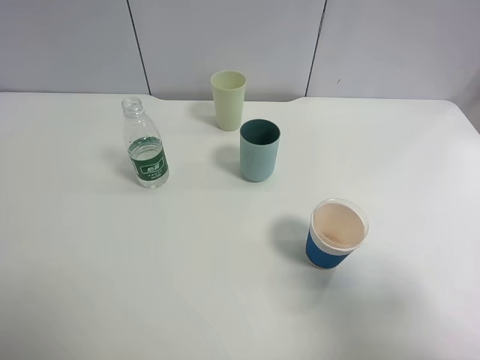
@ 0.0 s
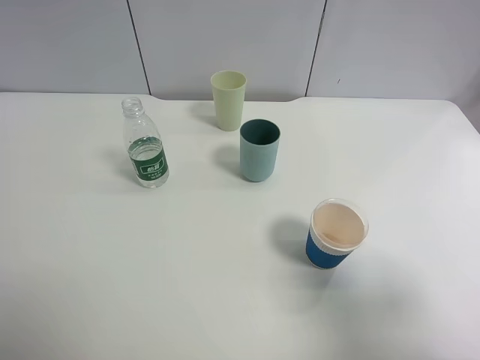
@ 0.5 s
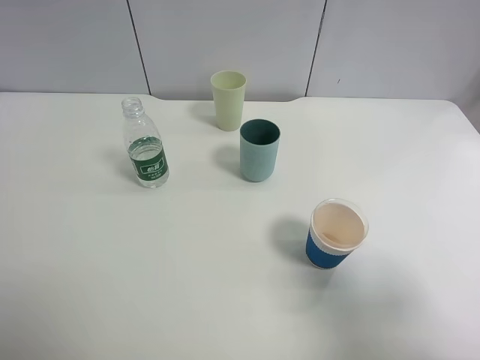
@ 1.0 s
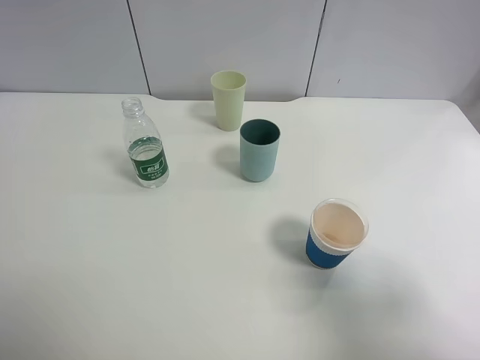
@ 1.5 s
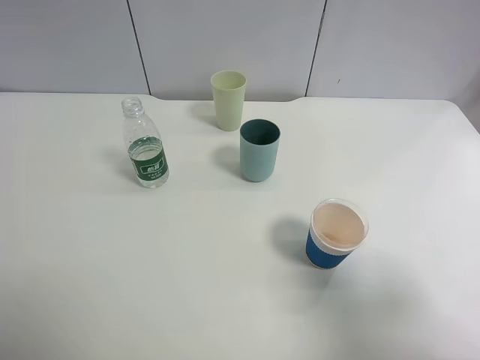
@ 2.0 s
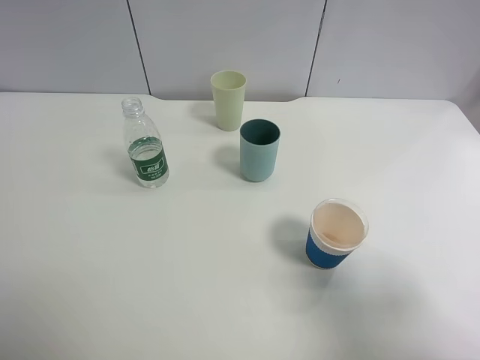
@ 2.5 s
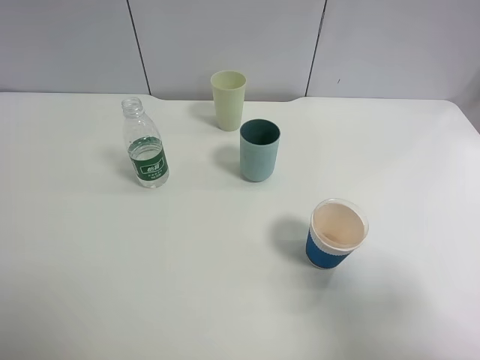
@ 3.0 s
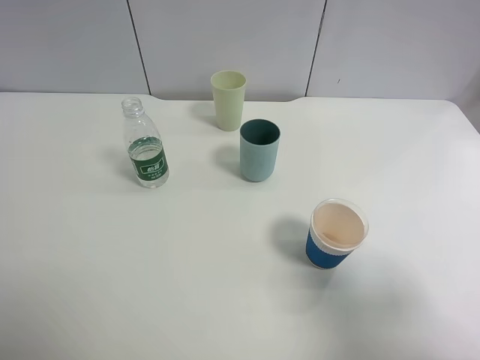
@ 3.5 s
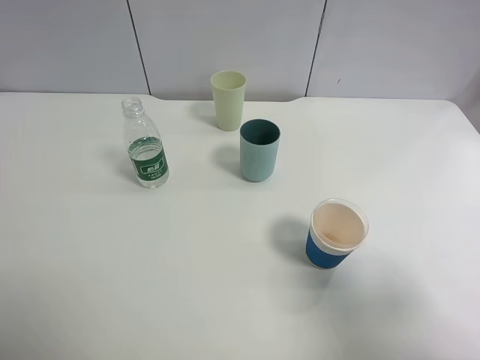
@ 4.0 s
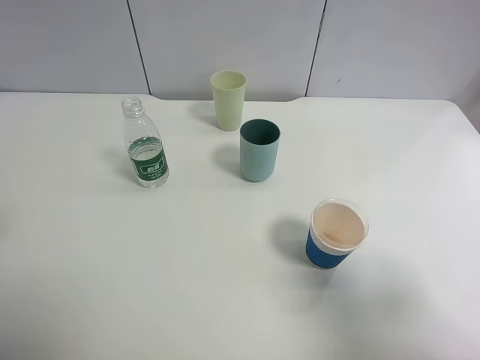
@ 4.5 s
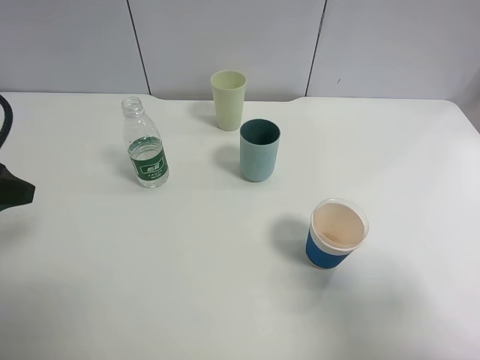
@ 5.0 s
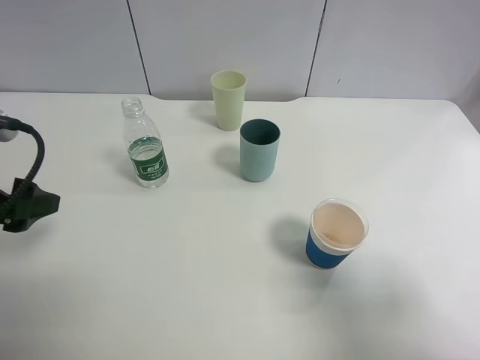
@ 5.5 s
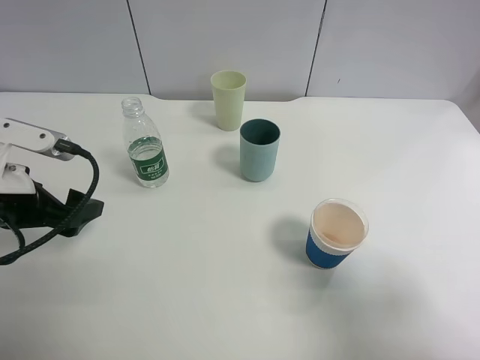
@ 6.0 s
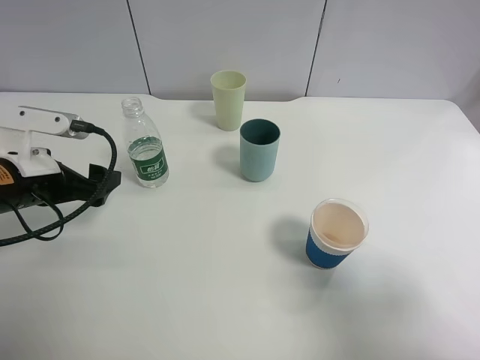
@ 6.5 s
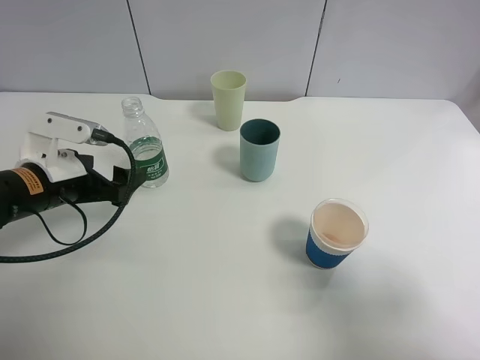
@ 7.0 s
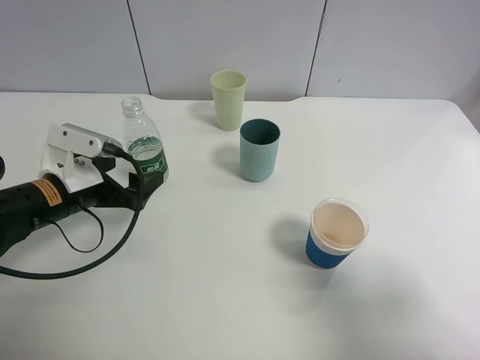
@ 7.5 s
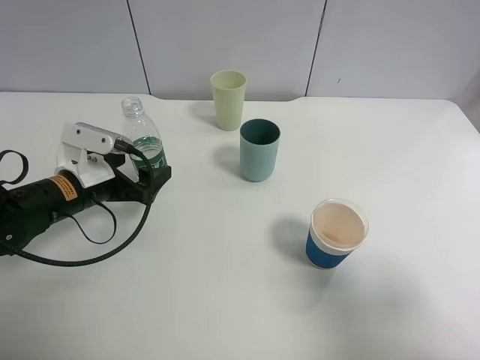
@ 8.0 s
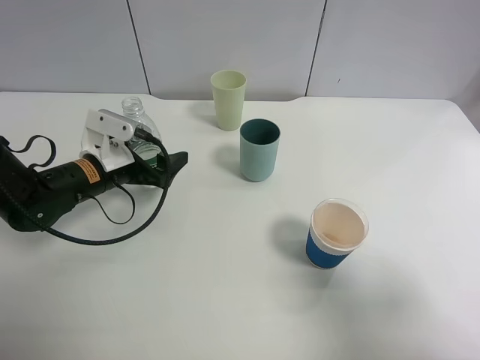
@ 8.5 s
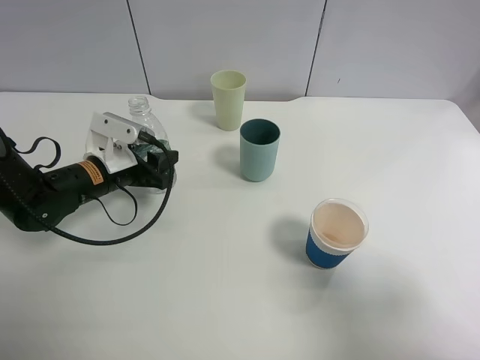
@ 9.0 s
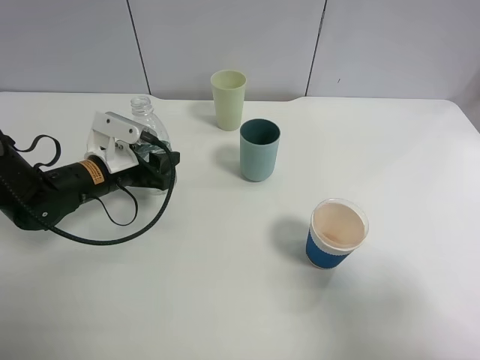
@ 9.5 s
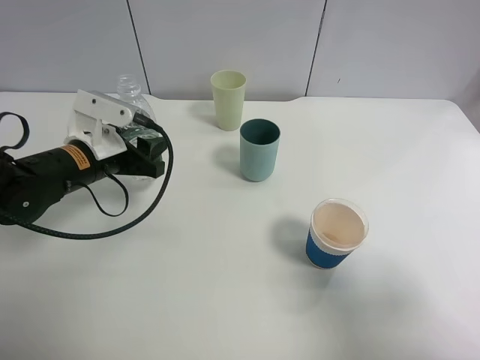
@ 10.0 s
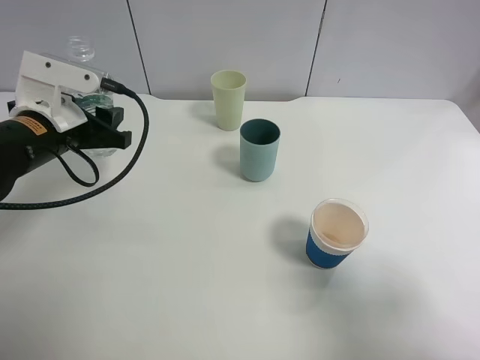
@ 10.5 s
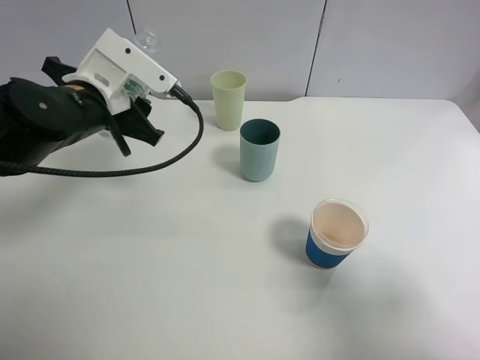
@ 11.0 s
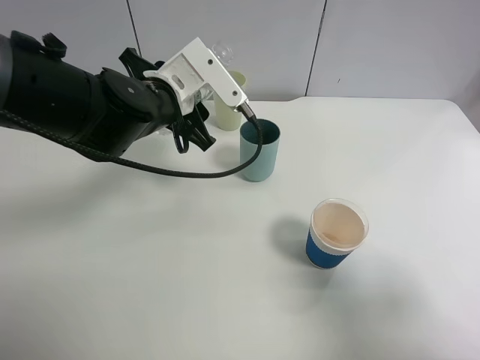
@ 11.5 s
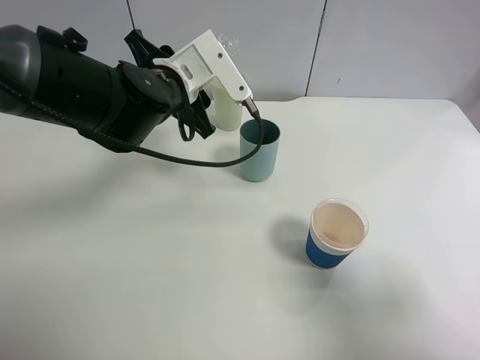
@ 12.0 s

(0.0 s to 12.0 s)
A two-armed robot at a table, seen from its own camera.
Task of the whole recording: use a clamp to hold the bottle of the drink, pour the beverage into a random cup, then clamp the cup containing the drink and pour the drink into another random cup.
Step, 0.0 s - 9.5 s: Pick up the water bottle with left gripper.
0.0 s - 2.0 s: Both grippers stay put.
4.0 s - 6.0 s: The left gripper shifts roughly 20 cm forward and downward.
6.0 s - 8.0 s: The left gripper is displaced downward and forward by approximately 10 cm.
8.0 s - 10.0 s: The left gripper closes up.
10.0 s - 12.0 s: The left gripper travels to the right and upward by roughly 15 cm.

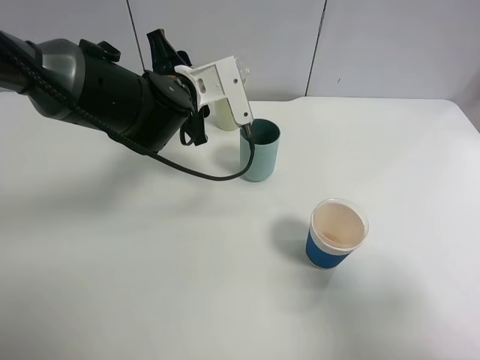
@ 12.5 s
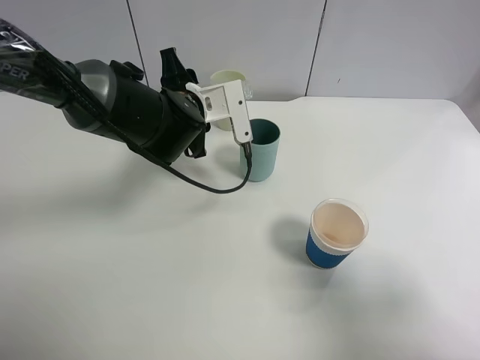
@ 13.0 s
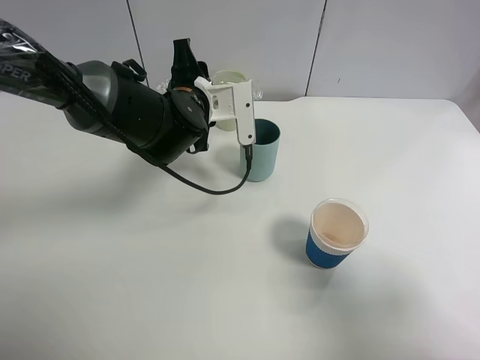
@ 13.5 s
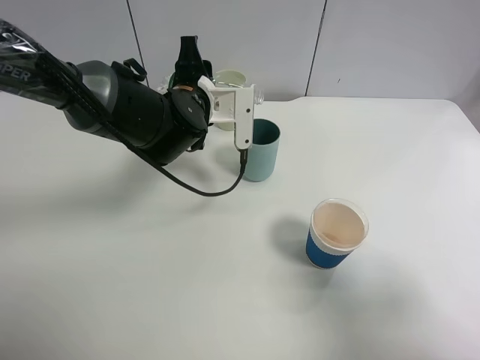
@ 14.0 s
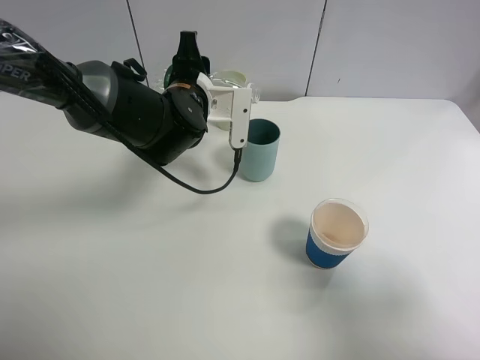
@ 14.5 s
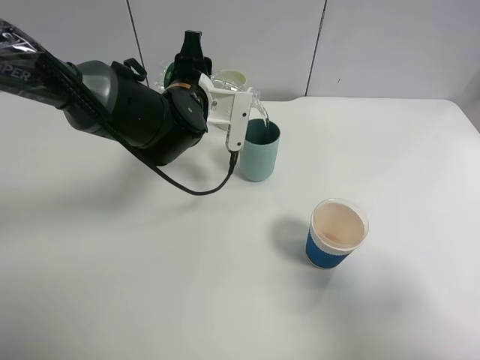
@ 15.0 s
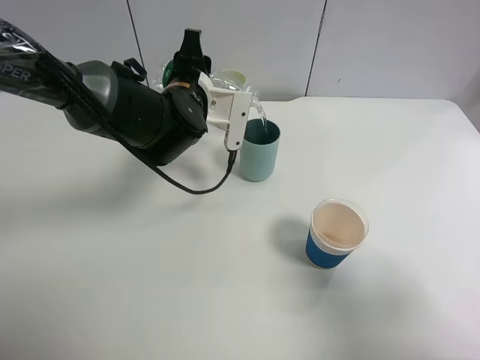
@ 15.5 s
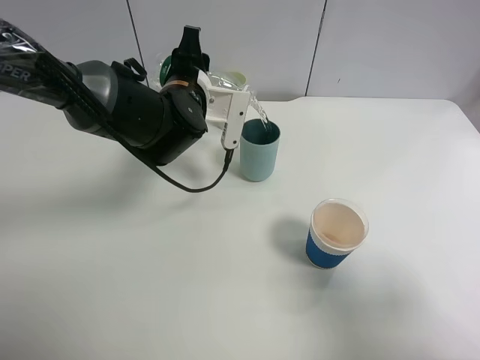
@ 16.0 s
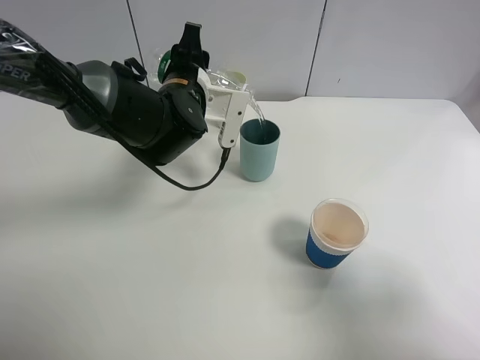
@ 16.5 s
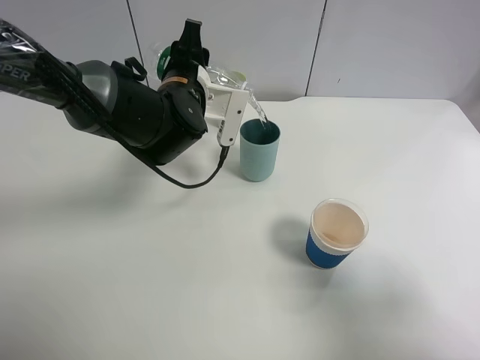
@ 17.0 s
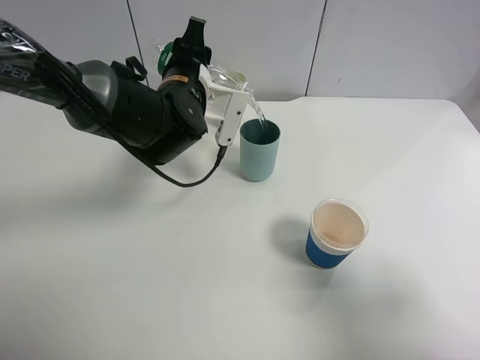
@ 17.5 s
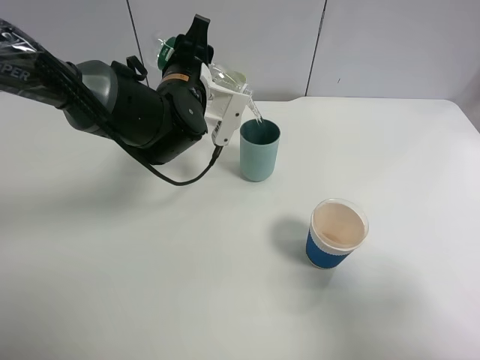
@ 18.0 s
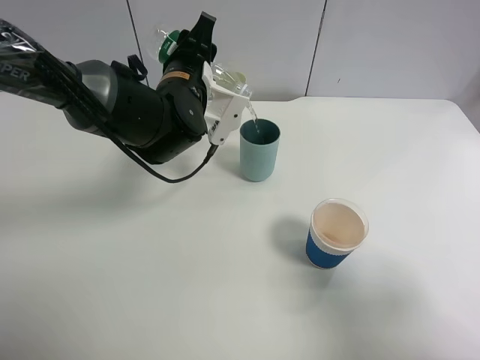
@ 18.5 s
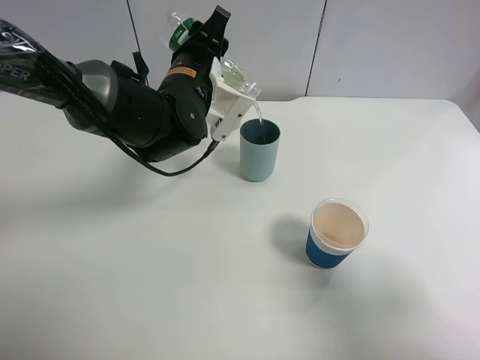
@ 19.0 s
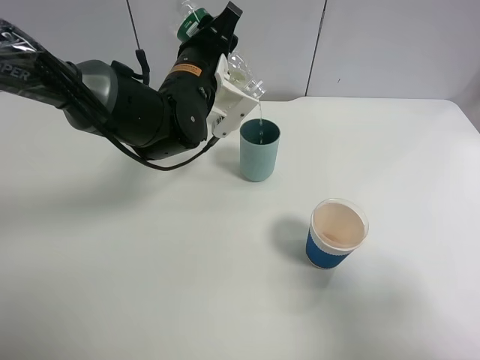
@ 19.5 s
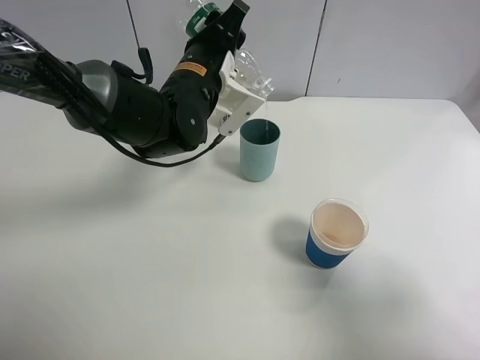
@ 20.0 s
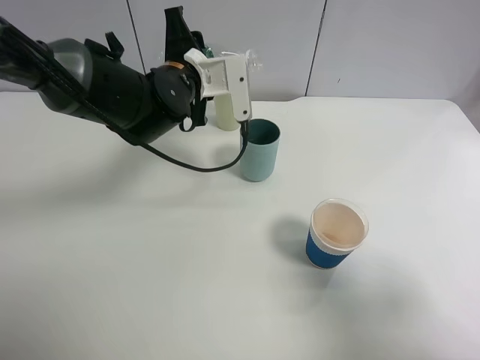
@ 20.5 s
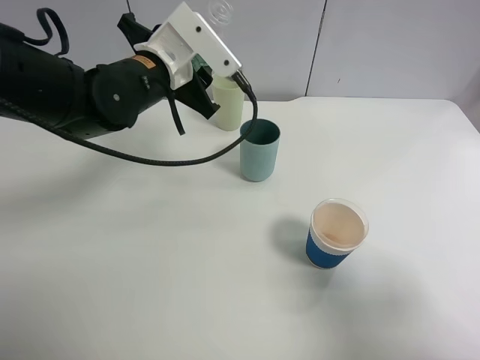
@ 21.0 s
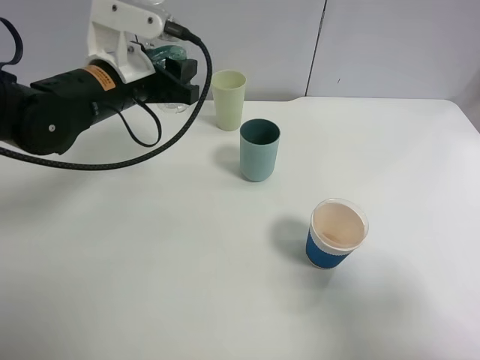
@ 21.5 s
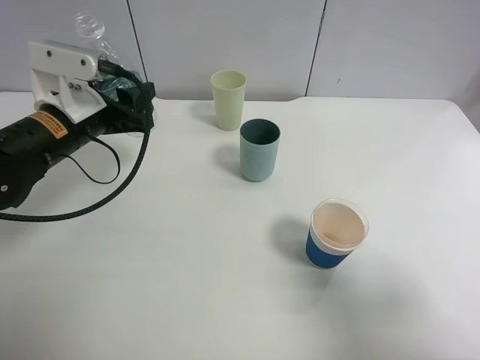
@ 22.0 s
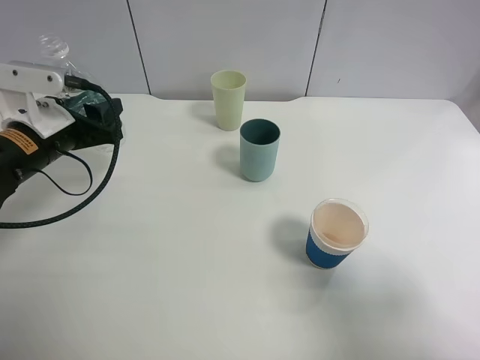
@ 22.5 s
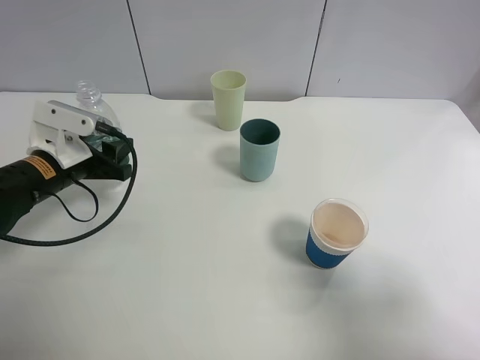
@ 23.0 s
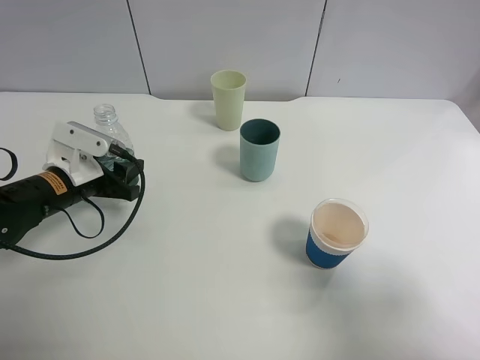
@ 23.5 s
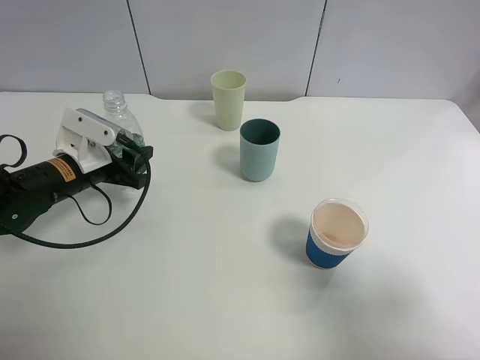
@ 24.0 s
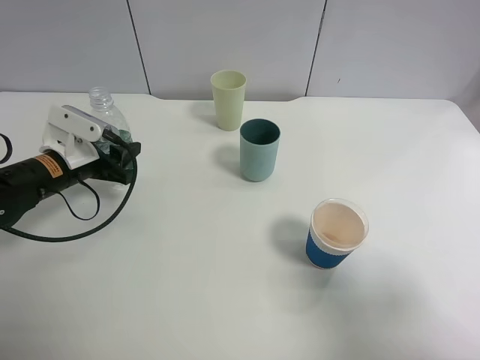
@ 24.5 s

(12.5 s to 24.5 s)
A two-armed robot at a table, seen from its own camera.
Task of the whole recording: use a clamp to hold the bottle of the drink, pour the beverage into a random cup, then clamp the cup containing the drink and pour the drink into another random cup.
Step, 12.5 s - 20.0 s: Pour the water into the blue plastic cup with left gripper.
14.5 s - 16.5 s: There are only small adjustments of the grippers.
16.5 s - 18.5 s: The grippers move only a little.
20.5 s - 22.5 s: The left gripper moves to the left and backward, some 20 cm.
22.5 s - 24.5 s: The left gripper travels downward by approximately 5 cm.

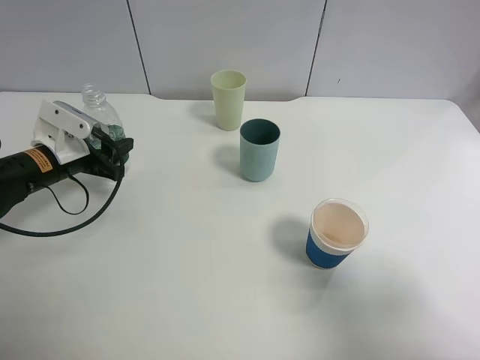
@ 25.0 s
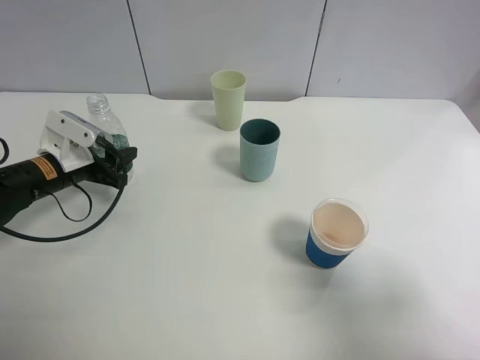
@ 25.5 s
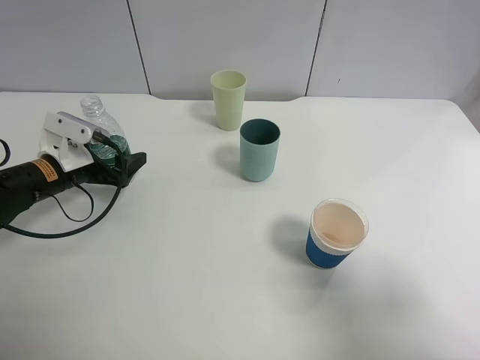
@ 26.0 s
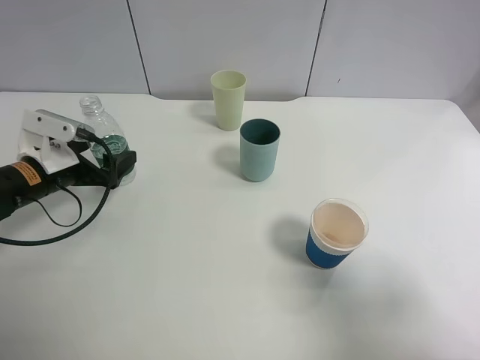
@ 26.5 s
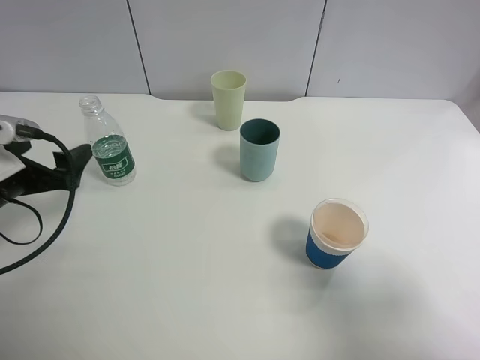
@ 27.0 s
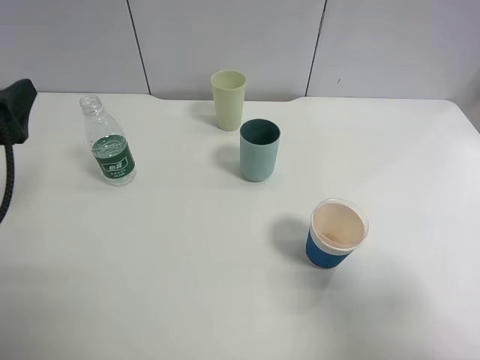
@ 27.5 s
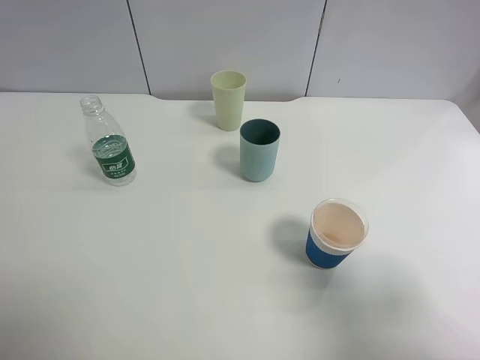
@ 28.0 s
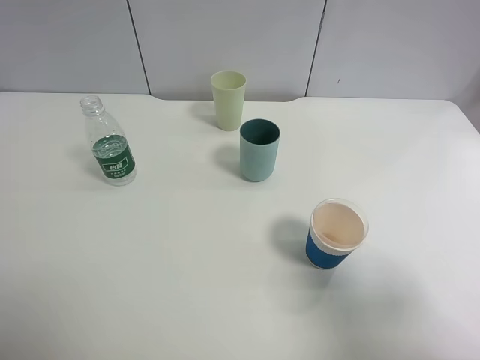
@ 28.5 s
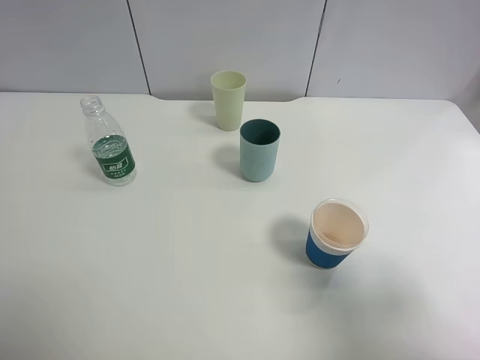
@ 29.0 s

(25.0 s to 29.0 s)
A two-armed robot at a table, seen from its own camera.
Task of the whole recording: use a clamp to hold the bottle of the drink, pour the beverage into a random cup, then clamp the cup containing the drink and pour the drink into another random cup.
25.0 s - 27.0 s: The left gripper shifts some 10 cm backward and upward, and opens.
27.0 s - 29.0 s: The left gripper heads backward and upward, covering approximately 25 cm.
